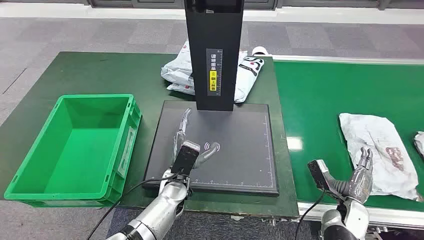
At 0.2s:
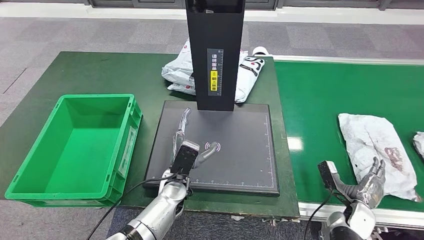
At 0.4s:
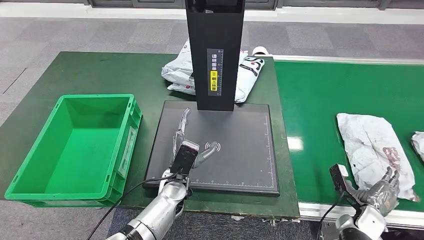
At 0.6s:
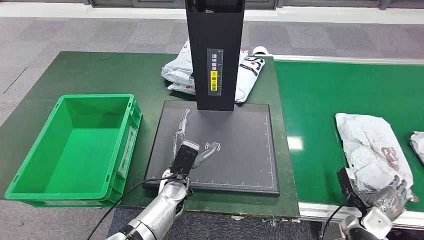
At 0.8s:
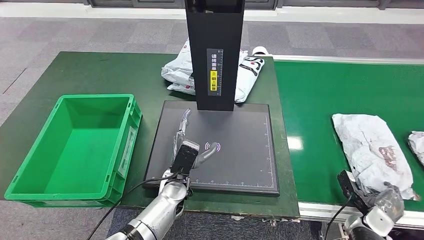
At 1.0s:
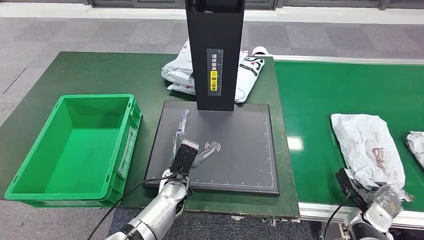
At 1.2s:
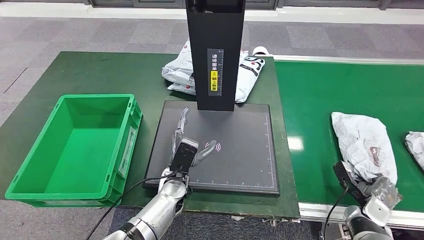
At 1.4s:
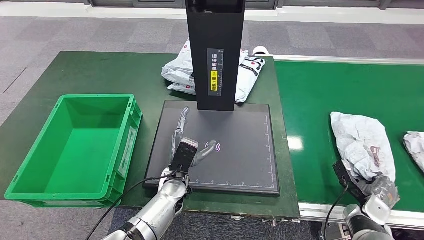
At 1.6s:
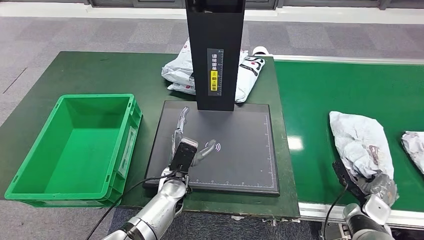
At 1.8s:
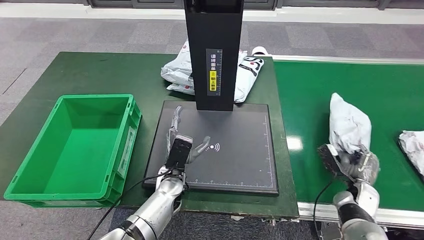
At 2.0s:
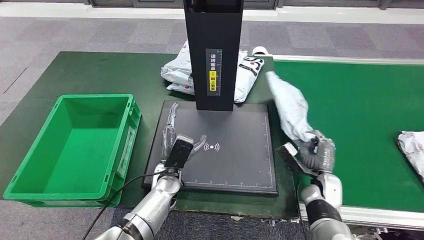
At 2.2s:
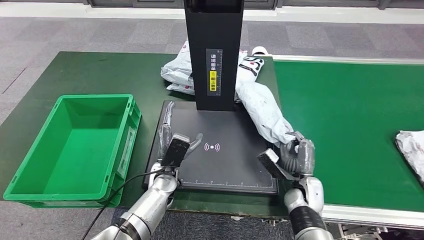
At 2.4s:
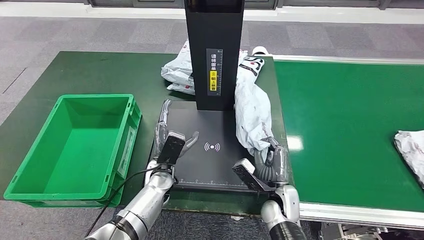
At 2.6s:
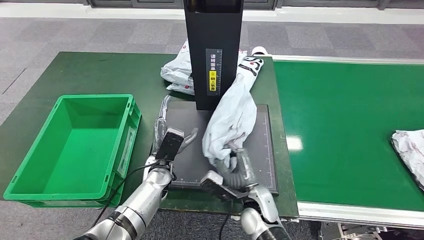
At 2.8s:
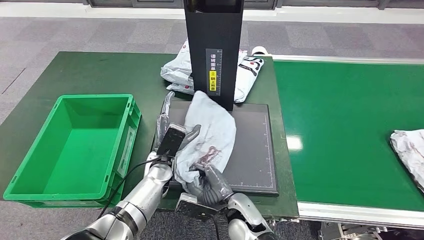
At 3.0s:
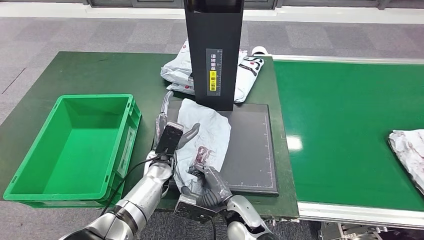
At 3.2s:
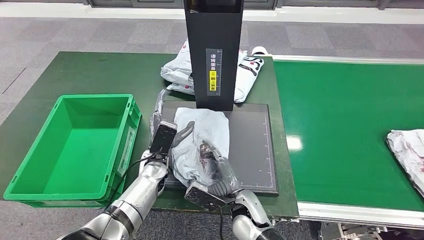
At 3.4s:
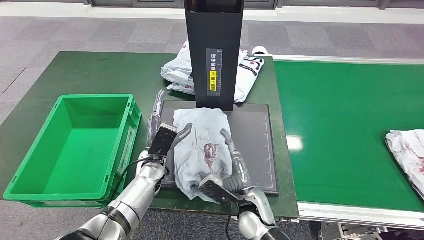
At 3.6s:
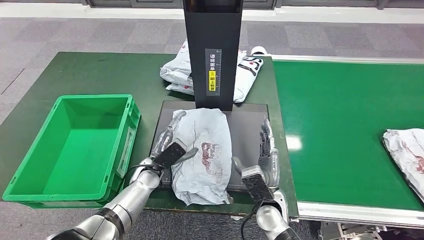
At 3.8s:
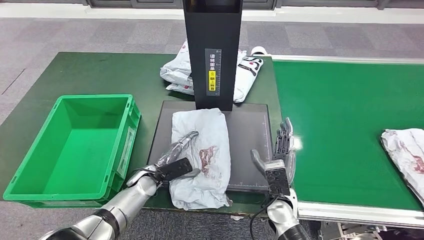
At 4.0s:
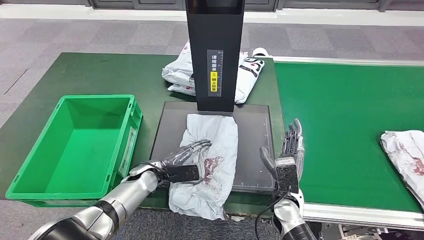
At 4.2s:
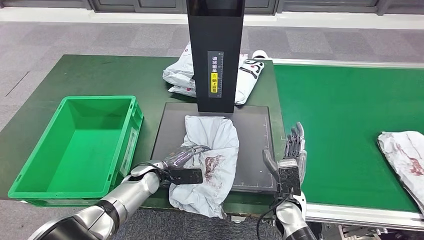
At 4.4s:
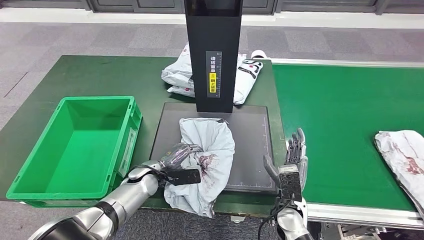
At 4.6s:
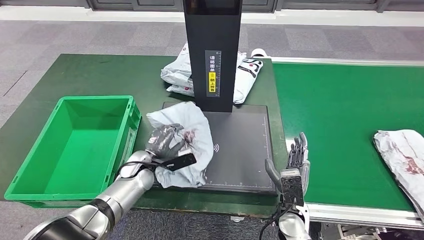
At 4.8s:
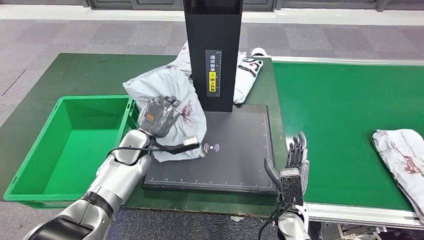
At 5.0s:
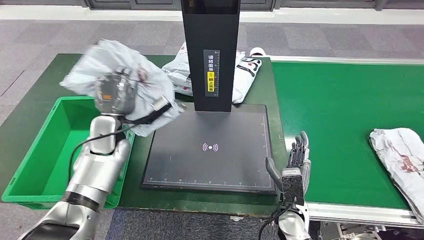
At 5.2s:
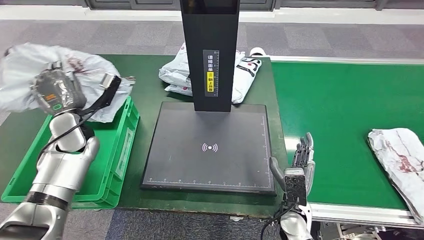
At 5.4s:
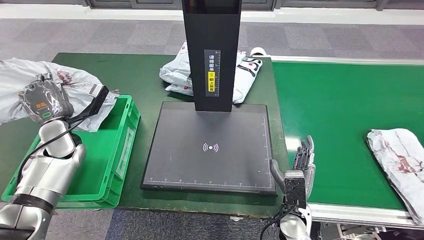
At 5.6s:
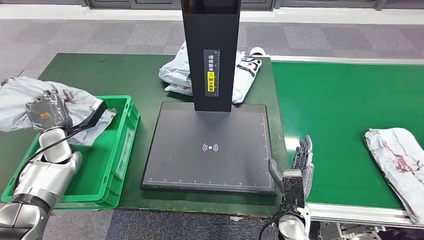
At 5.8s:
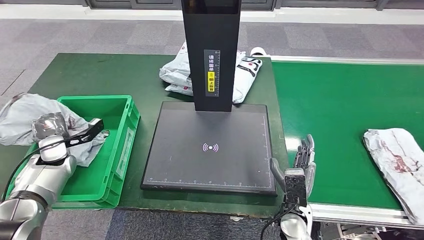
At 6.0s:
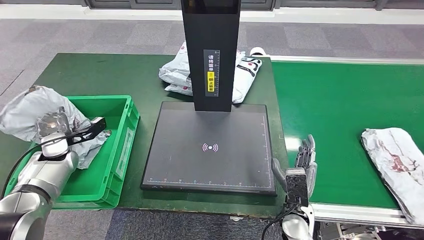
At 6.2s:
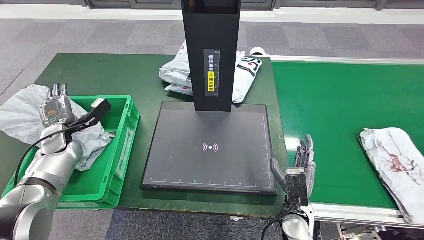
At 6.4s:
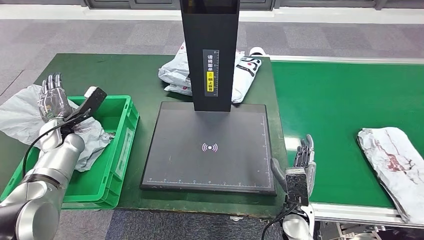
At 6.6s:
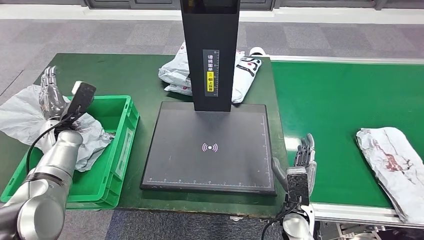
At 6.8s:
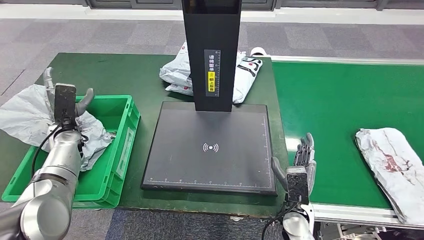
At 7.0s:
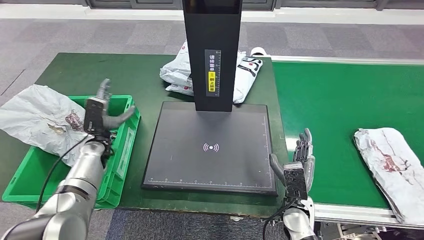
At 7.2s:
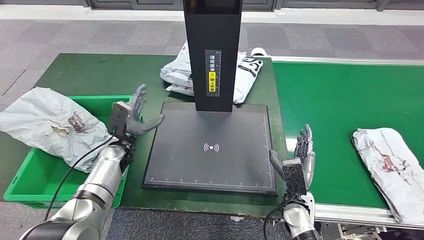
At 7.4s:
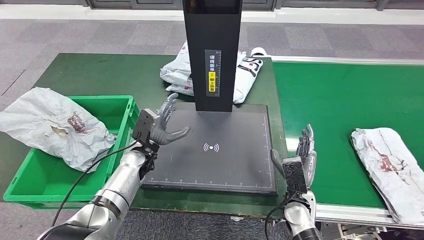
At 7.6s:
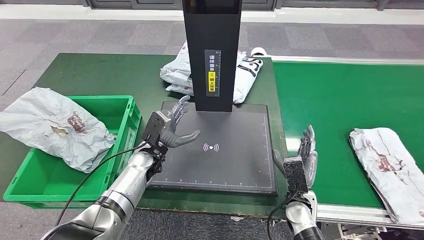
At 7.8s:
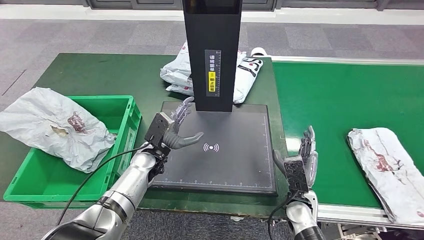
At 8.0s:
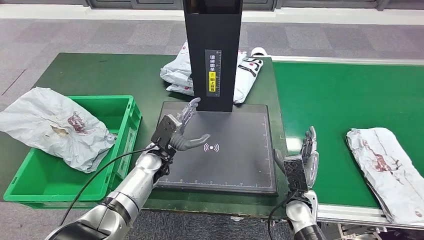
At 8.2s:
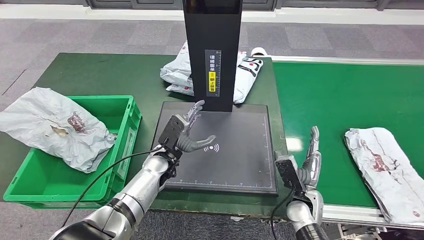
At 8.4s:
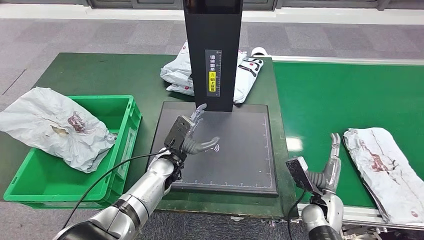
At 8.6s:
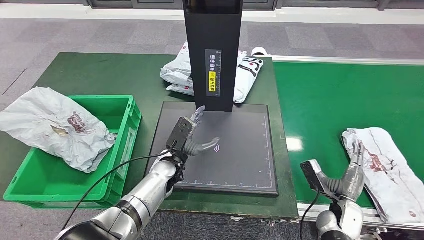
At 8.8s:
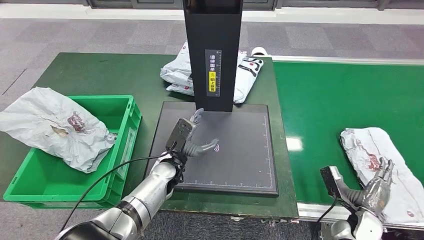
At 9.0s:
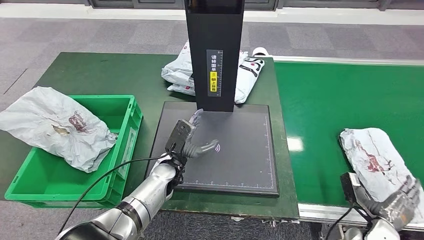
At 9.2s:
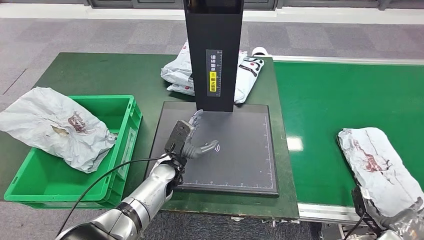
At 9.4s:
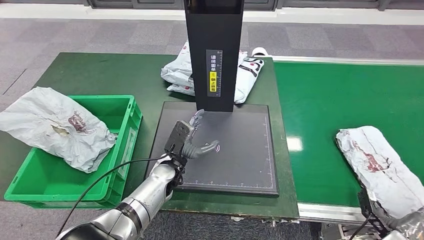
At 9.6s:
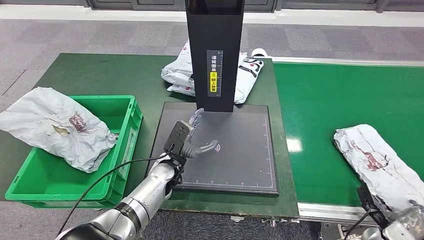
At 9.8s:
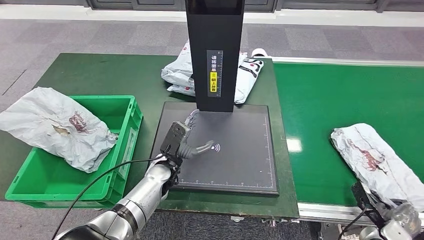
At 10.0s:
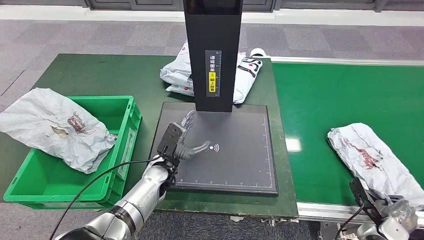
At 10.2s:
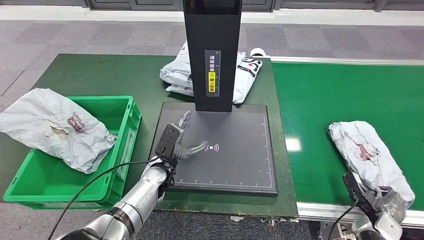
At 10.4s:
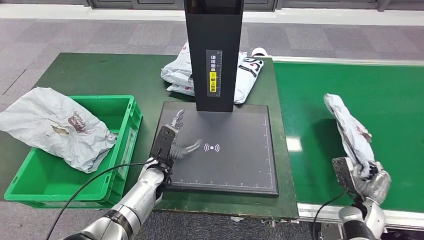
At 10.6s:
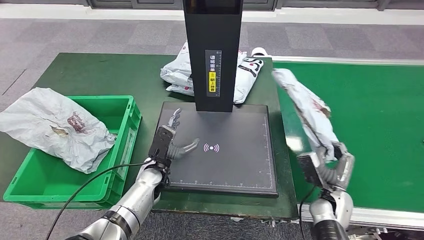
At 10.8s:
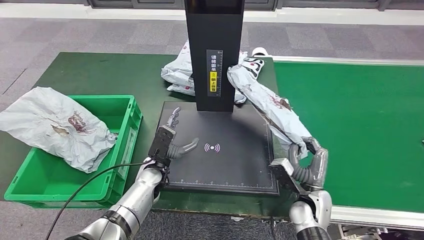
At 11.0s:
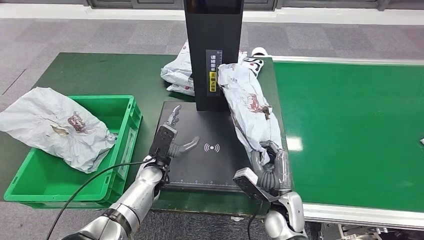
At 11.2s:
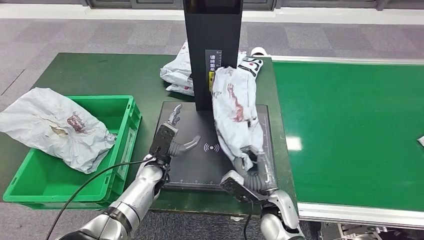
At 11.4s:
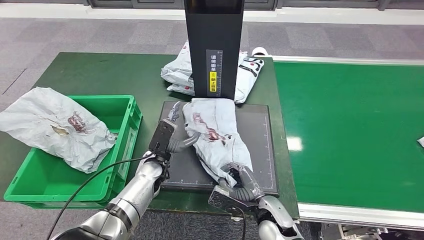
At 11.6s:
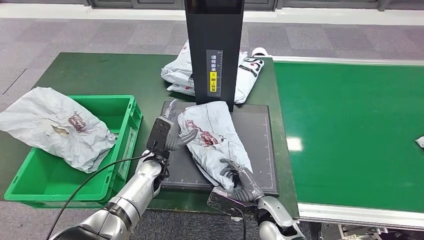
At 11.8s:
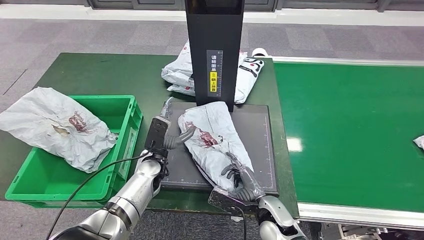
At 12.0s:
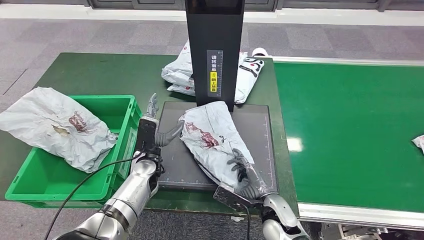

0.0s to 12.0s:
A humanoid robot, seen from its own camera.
Step, 0.0s to 1.8s: Take the parcel off the conveyor belt.
Step, 2.0s to 3.4s: Place the parcel onto the inbound machine.
Step, 3.6s to 5.2s: Pick up the parcel from the inbound machine.
Step, 5.4s to 7.4s: Put the parcel inside the courier box.
Step, 7.6s to 10.4s: Pick up the parcel from the conveyor belt.

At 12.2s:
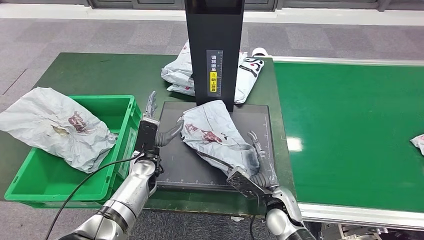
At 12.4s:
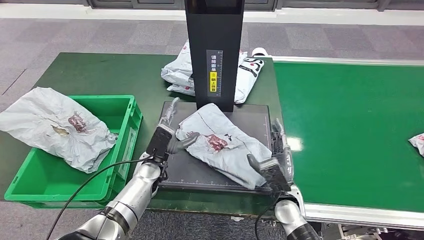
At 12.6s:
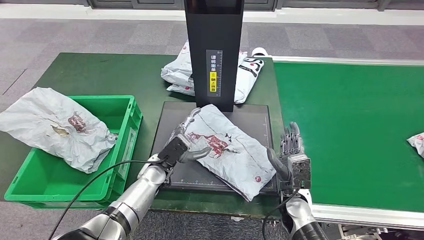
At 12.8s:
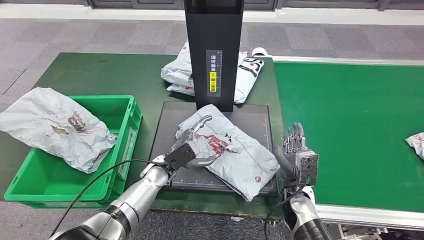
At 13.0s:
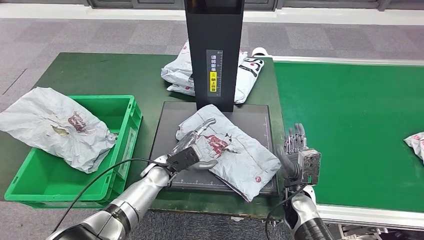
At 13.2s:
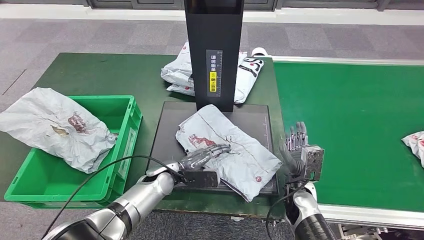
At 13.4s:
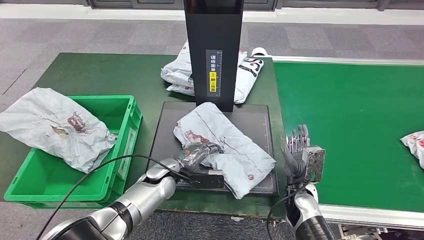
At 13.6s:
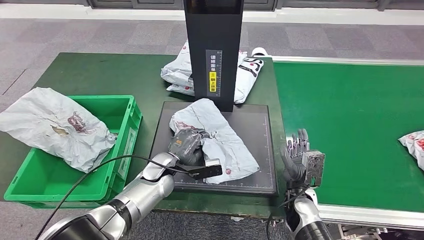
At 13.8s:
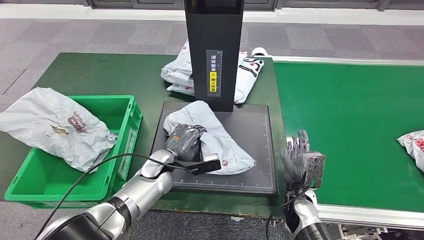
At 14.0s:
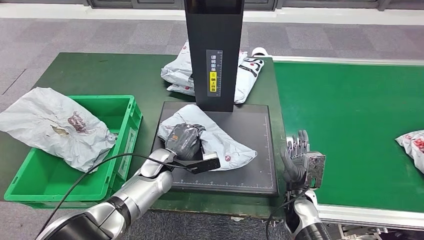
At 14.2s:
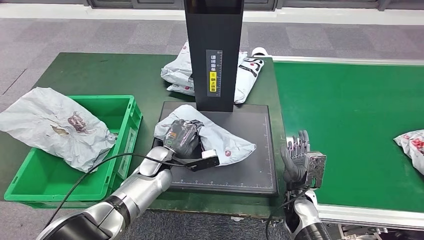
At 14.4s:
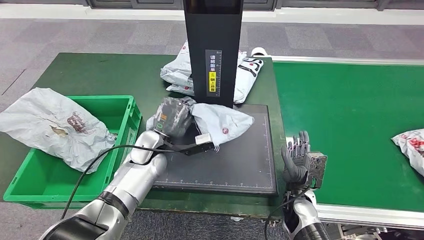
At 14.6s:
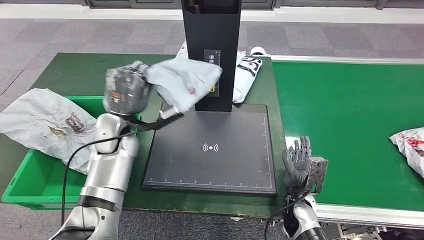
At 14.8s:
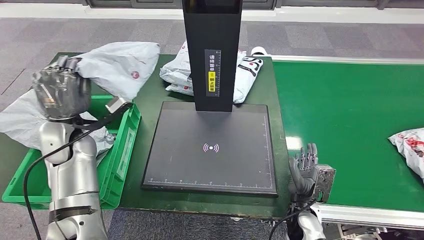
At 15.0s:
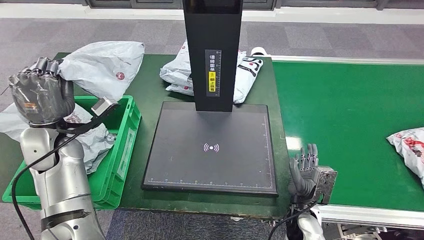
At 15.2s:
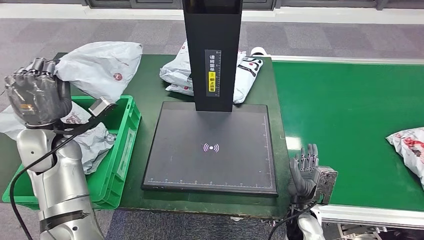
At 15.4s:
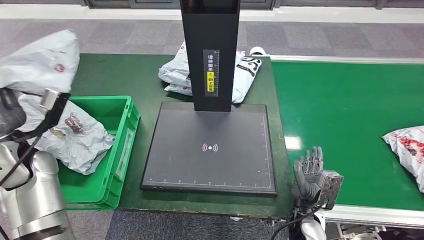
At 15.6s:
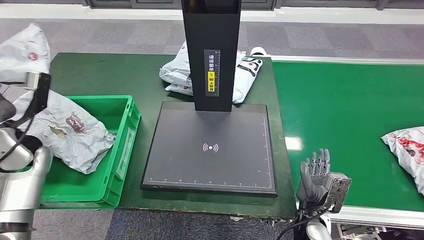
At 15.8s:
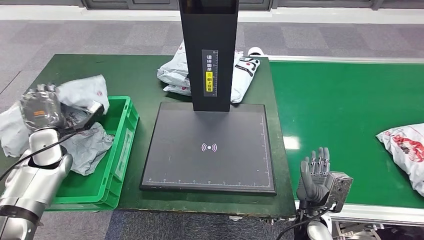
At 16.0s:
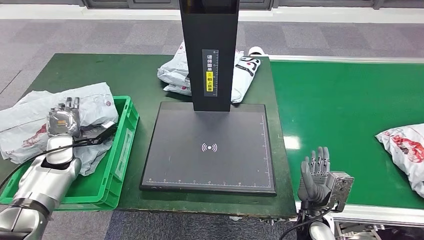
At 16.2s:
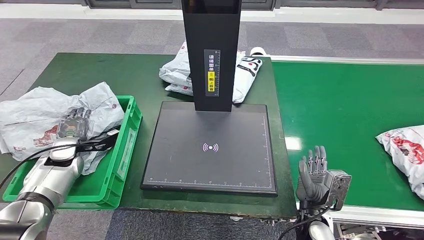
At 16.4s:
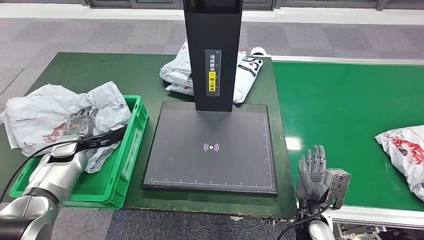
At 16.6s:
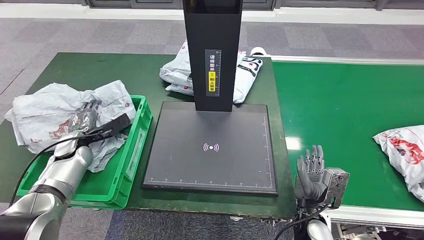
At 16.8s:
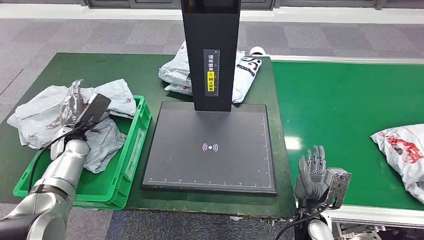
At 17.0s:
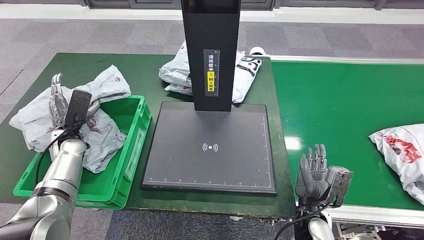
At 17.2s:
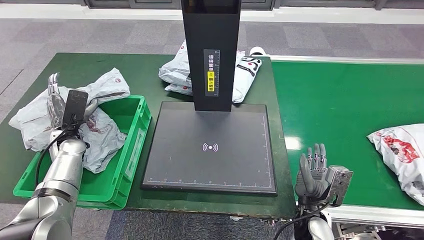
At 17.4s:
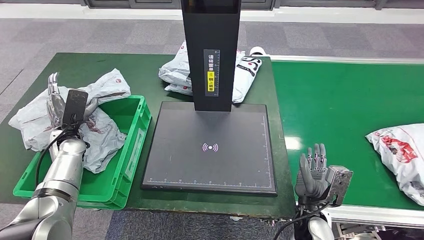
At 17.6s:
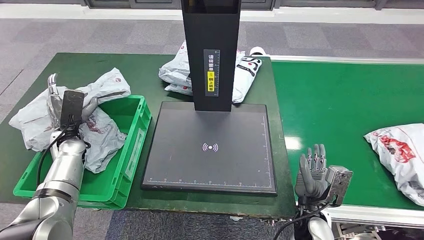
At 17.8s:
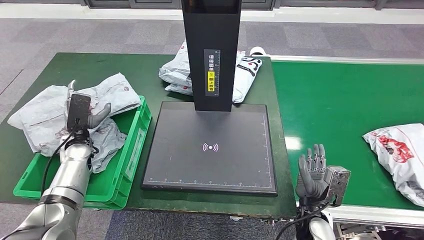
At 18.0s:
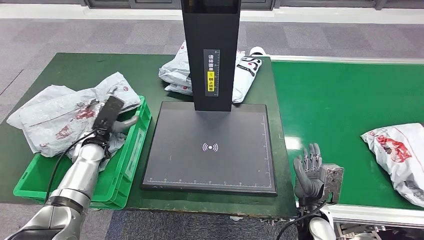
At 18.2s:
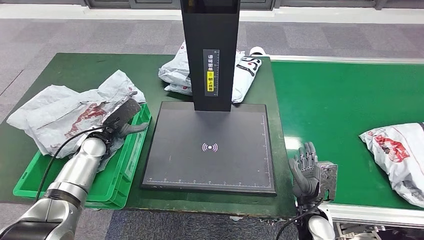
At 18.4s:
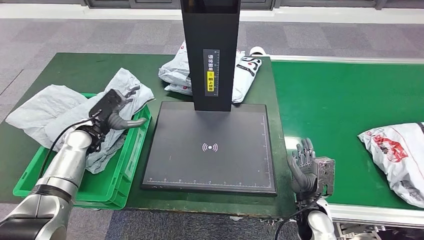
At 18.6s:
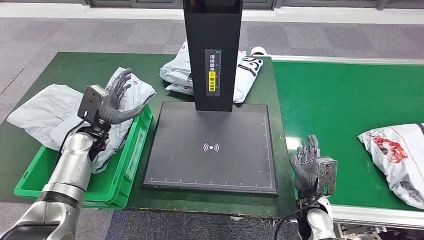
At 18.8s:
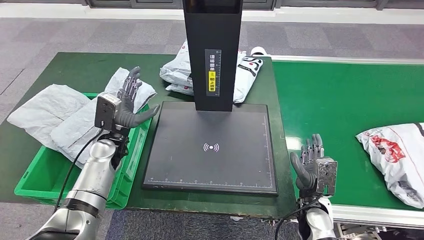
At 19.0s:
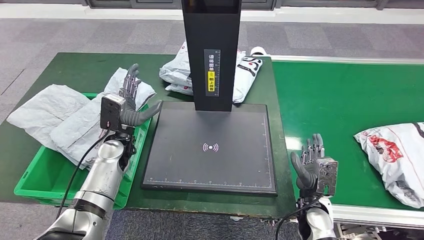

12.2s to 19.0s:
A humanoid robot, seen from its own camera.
Step, 12.6s to 14.8s: Pick up the parcel from the inbound machine.
Step, 15.2s to 17.0s: Place the parcel into the delivery box.
12.2s to 13.6s: The right hand travels to the right by approximately 5 cm.
17.6s to 19.0s: The left hand shifts some 15 cm to the right.
